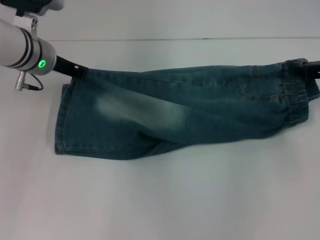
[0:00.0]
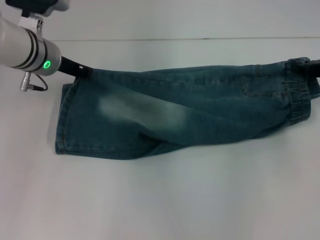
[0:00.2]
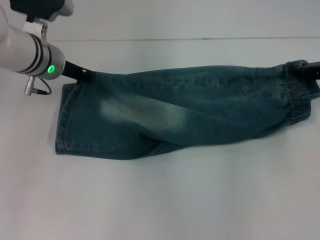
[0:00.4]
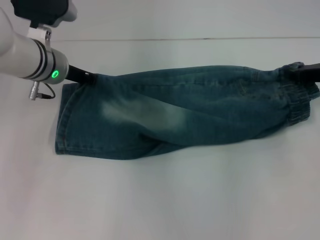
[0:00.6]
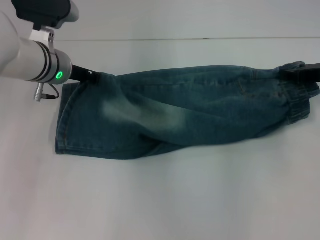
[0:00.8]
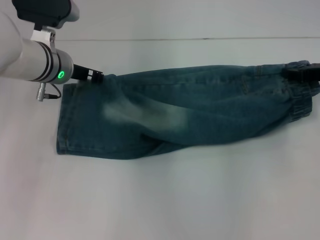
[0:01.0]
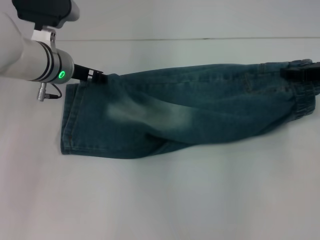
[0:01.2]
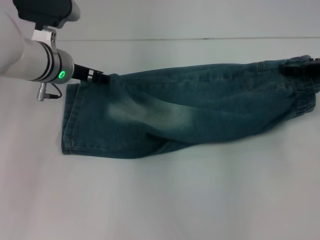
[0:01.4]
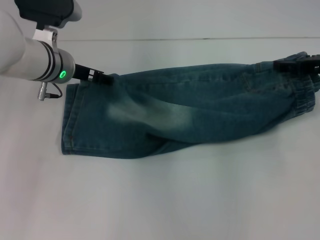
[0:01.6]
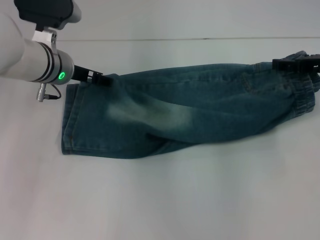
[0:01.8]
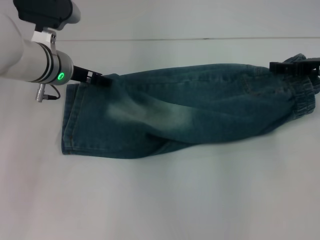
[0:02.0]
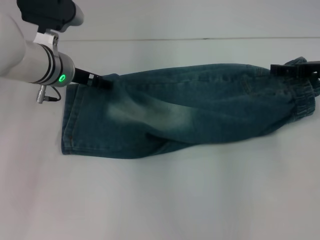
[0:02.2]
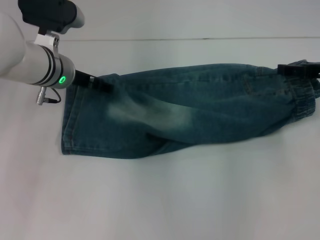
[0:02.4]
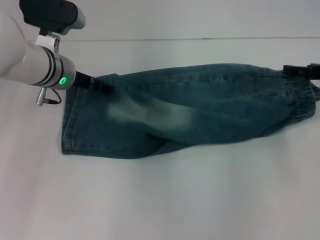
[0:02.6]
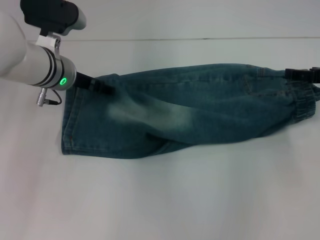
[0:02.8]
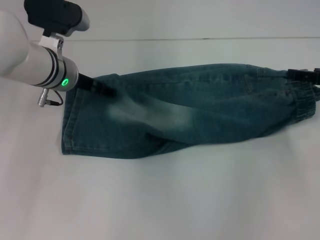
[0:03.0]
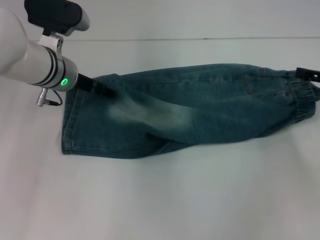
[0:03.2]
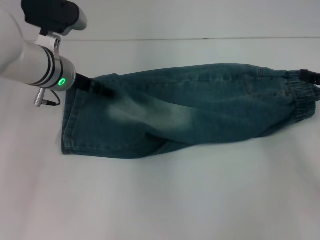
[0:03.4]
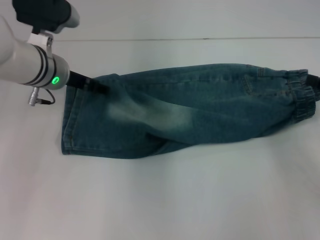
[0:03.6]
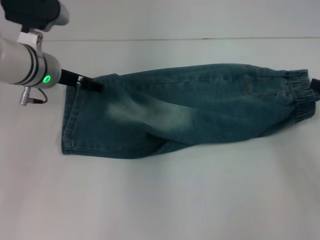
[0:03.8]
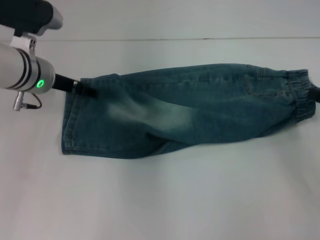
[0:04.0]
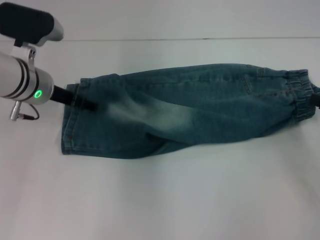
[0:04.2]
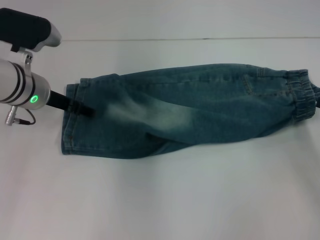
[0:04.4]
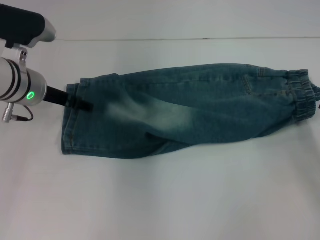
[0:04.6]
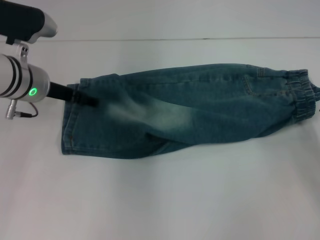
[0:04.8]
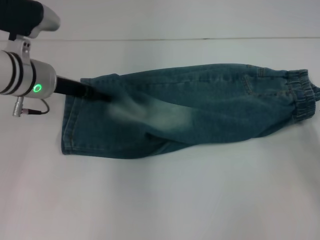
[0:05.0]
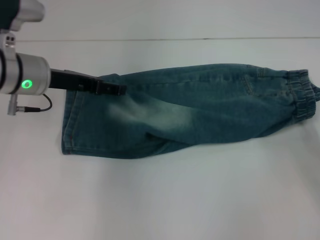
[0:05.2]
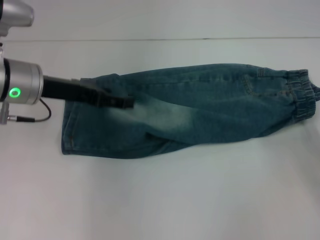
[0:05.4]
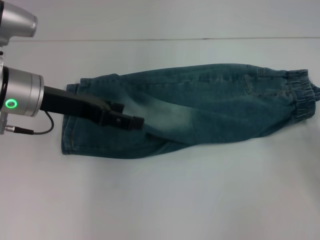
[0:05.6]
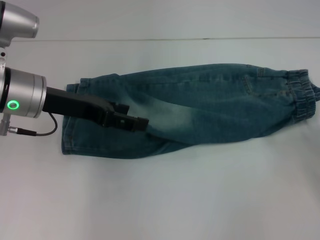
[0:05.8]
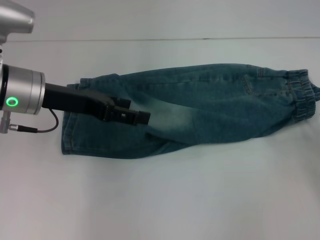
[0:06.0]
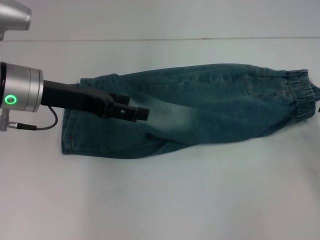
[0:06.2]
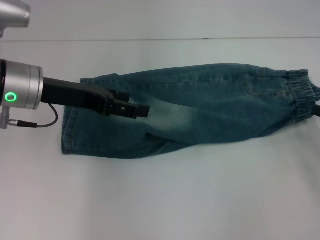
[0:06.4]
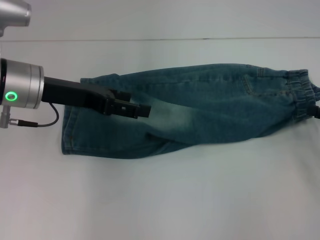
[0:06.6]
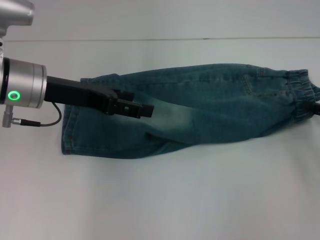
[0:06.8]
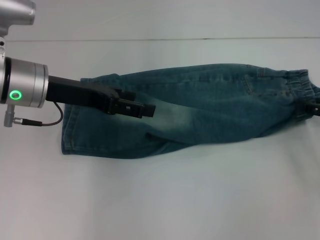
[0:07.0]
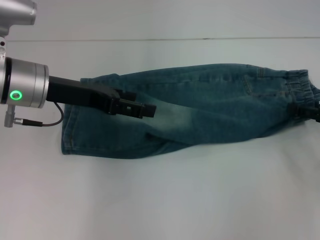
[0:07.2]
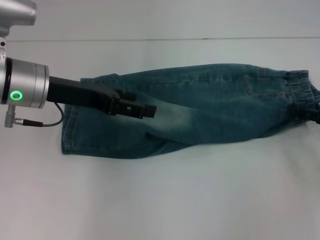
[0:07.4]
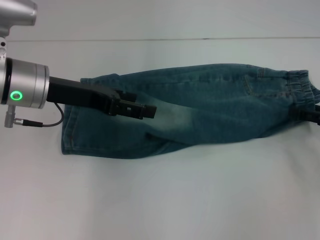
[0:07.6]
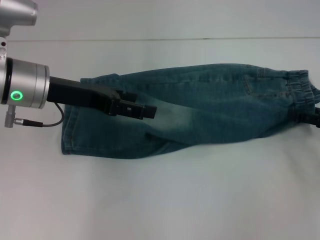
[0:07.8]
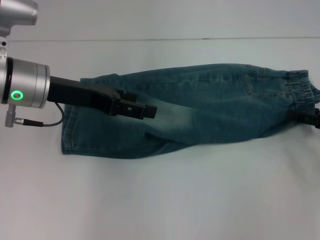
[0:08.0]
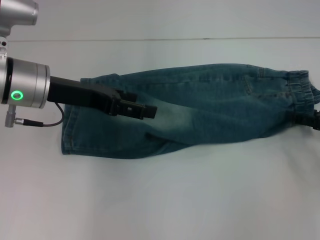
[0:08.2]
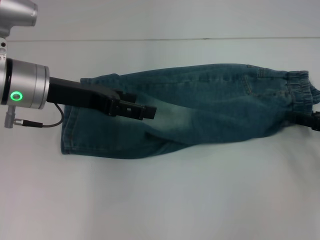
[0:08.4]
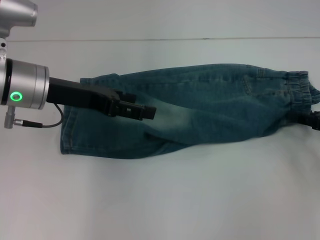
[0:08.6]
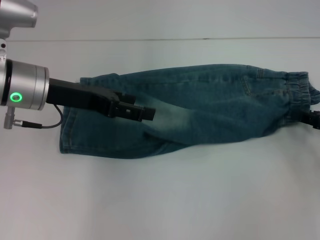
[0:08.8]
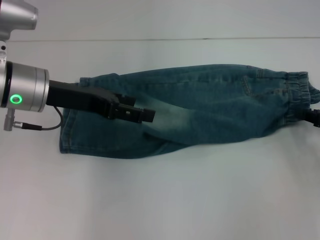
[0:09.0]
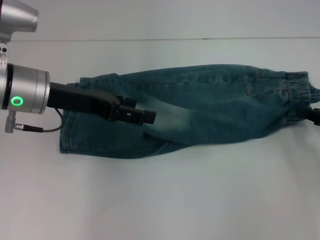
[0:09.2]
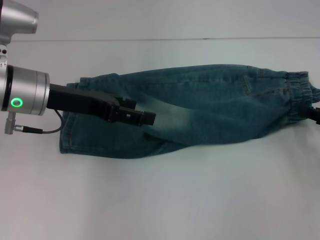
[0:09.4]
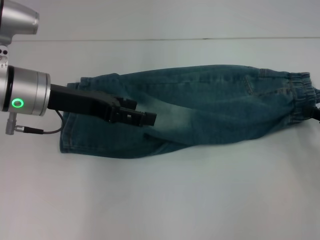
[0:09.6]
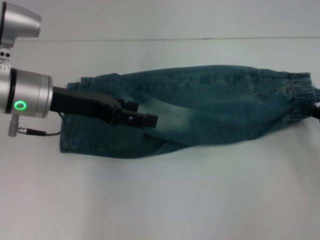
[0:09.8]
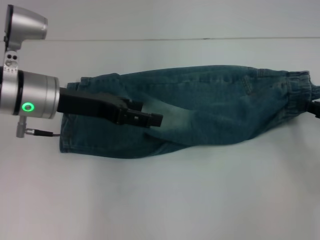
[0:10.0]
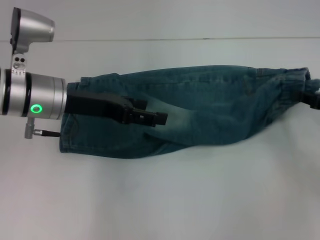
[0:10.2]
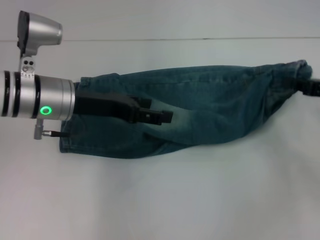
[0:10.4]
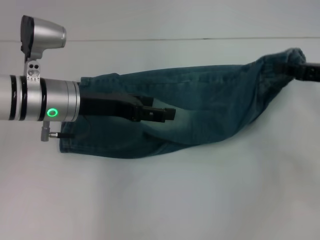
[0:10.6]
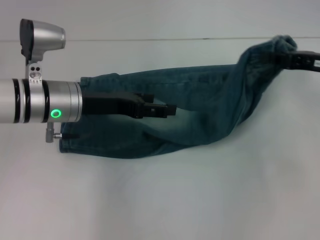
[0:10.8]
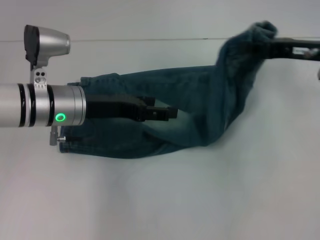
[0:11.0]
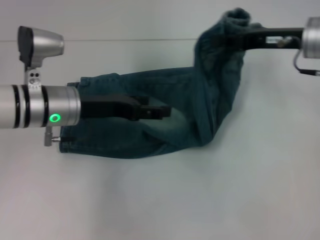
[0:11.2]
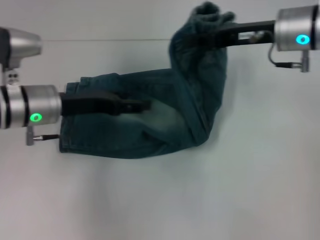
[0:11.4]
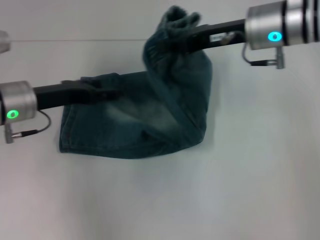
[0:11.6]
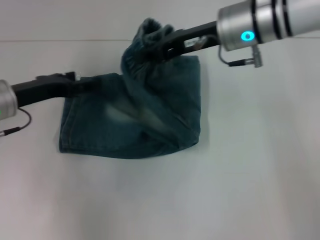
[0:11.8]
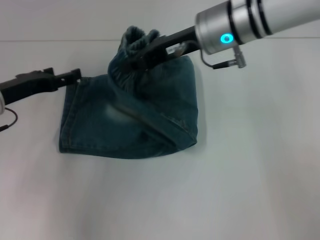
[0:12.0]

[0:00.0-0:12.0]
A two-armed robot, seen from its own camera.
Step, 0:00.0 to 0:02.0: Fold upward with your left hand.
Step, 0:02.2 to 0:03.0: Fold upward with your right hand.
Step, 0:03.2 to 0:09.4: Grab the waistband with your right hand.
Step, 0:09.8 to 0:11.2: Press the middle of the pants with your left hand.
0:00.0 to 0:01.6: The left gripper opens its fingers; the right gripper opens up.
0:01.6 to 0:03.0: The grippers make only small movements.
0:03.0 to 0:04.4: The left gripper changes place by some 5 cm. The right gripper is displaced backward by some 10 cm.
0:04.4 to 0:06.0: The left gripper changes place by about 5 cm.
0:06.0 to 0:07.6: The right gripper moves about 5 cm.
0:07.6 to 0:09.0: The right gripper closes.
0:09.0 to 0:10.4: The right gripper changes place by about 5 cm.
0:10.4 to 0:12.0: The right gripper moves to the left, approximately 25 cm, while the left gripper travels to the left by some 10 cm.

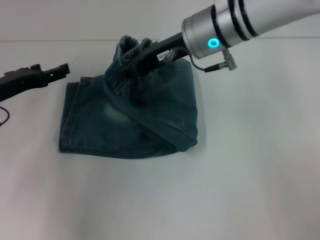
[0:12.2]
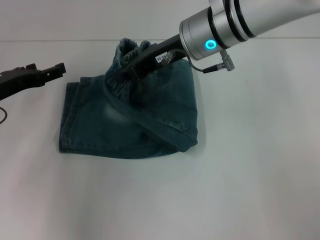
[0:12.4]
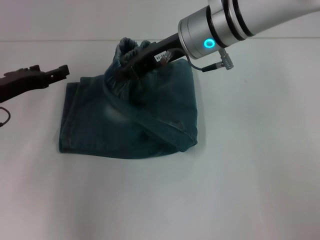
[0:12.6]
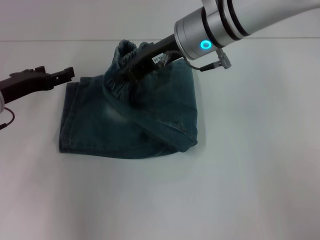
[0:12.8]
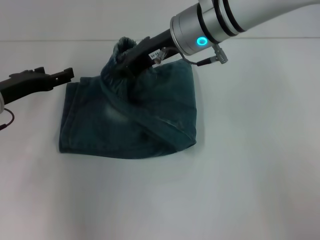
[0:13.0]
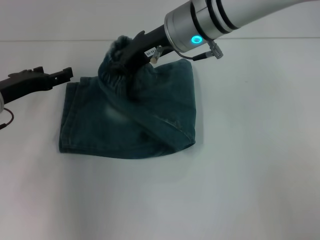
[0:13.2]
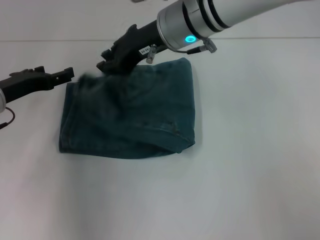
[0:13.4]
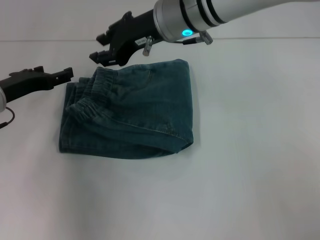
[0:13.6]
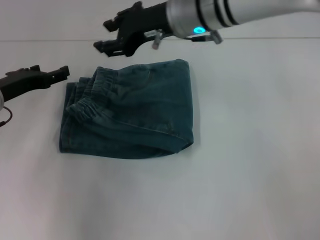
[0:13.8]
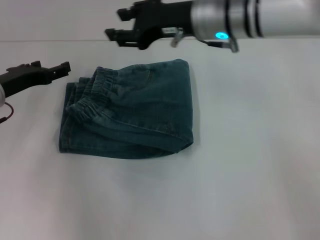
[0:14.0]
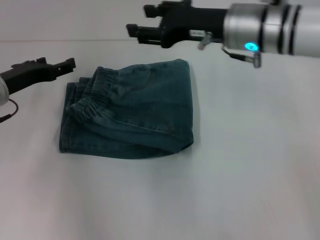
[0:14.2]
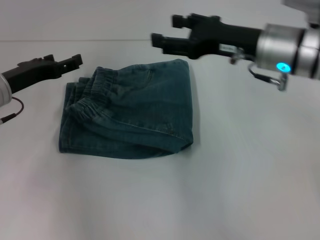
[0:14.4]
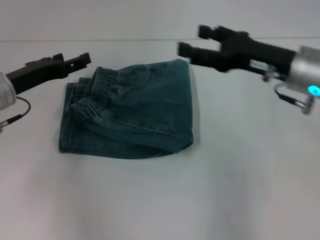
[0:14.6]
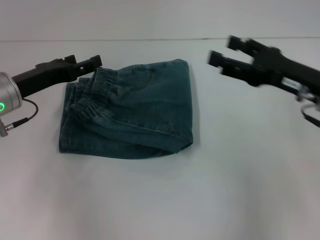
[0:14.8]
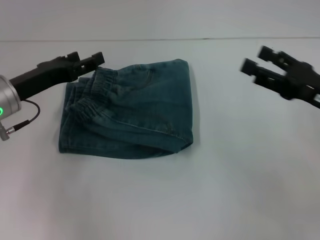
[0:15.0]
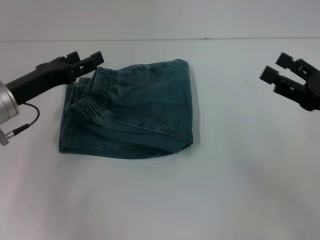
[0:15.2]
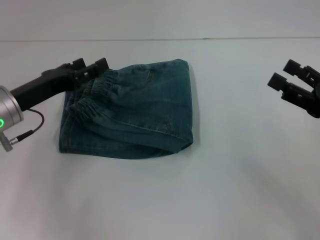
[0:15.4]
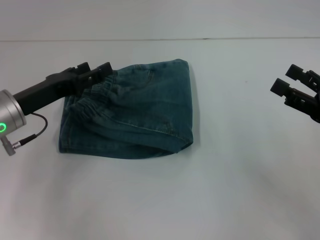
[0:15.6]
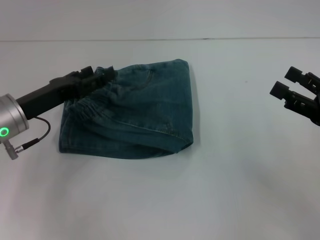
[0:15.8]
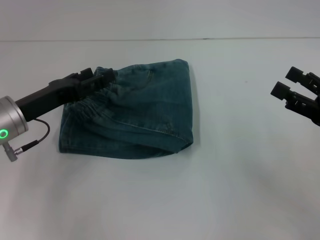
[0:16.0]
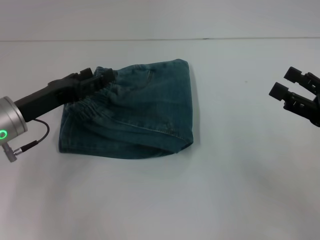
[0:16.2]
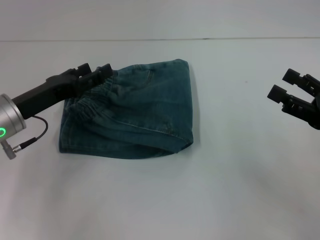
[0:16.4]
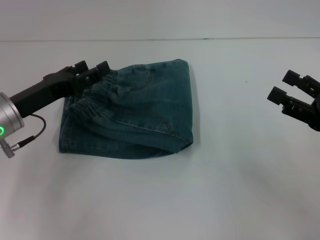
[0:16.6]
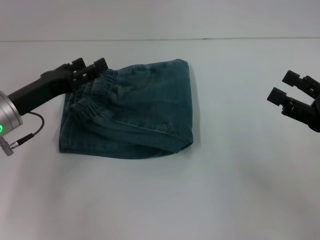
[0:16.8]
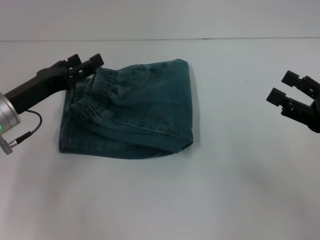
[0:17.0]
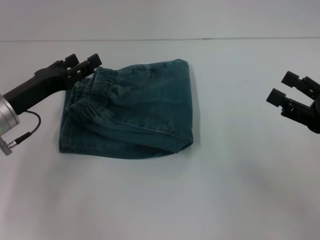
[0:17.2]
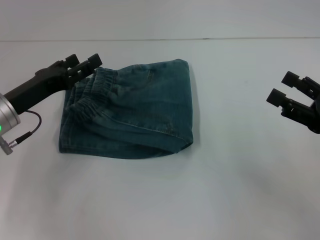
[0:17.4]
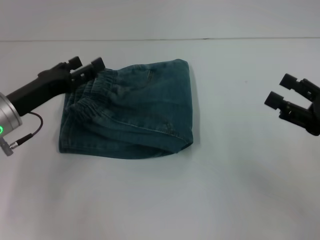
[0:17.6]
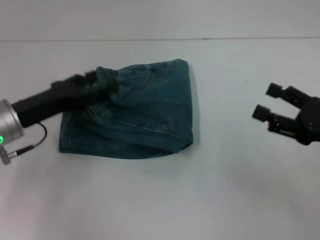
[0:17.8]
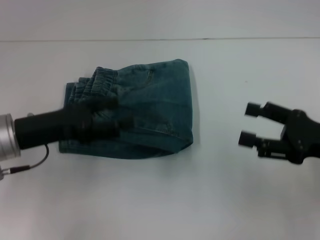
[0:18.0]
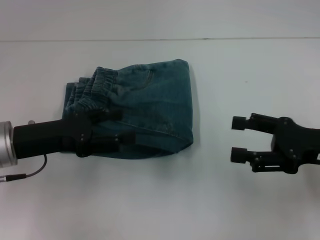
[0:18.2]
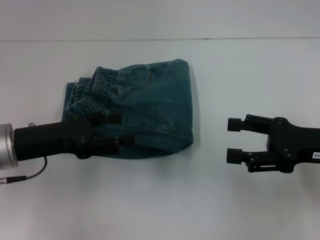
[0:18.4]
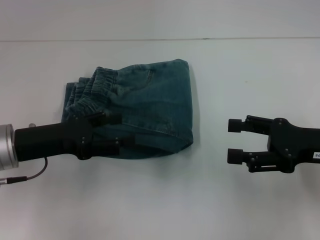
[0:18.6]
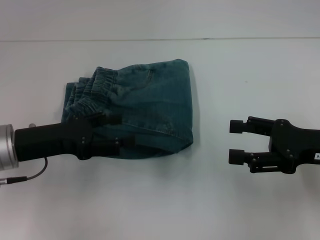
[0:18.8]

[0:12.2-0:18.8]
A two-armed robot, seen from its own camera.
Step, 0:12.2 to 0:13.4: Fold to the left with your right hand.
0:12.2 to 0:13.8: The right gripper opens its fingers.
0:13.8 to 0:15.4: The right gripper travels to the right, backward and downward by approximately 30 cm, and opens up.
0:15.4 to 0:17.2: There are only small adjustments of the grippers.
